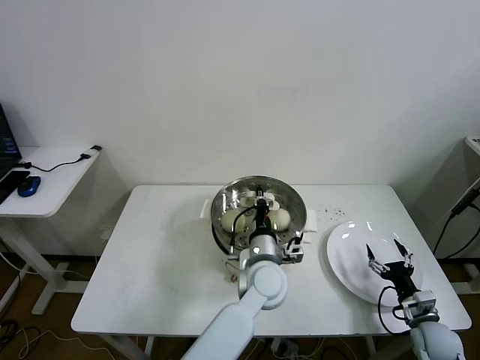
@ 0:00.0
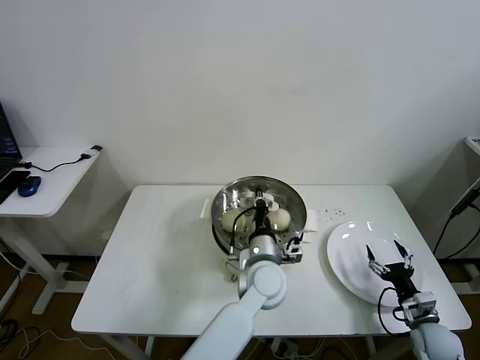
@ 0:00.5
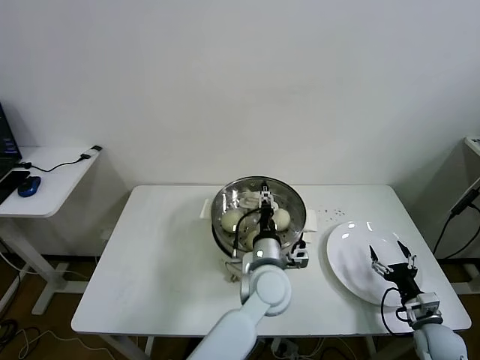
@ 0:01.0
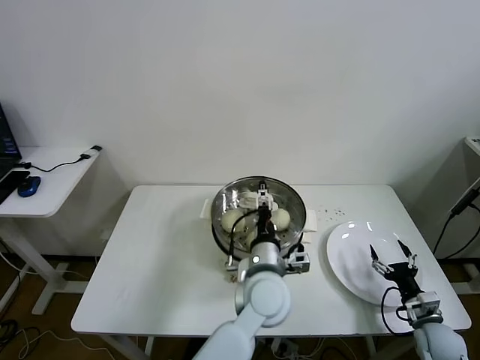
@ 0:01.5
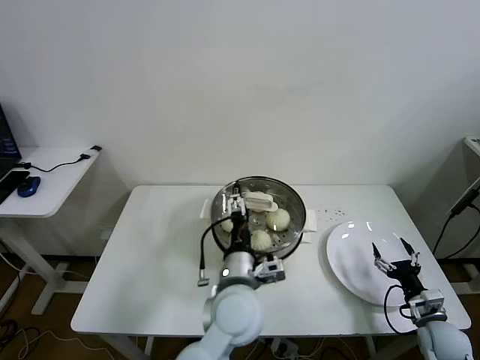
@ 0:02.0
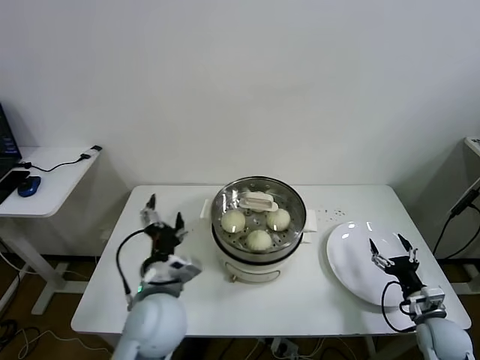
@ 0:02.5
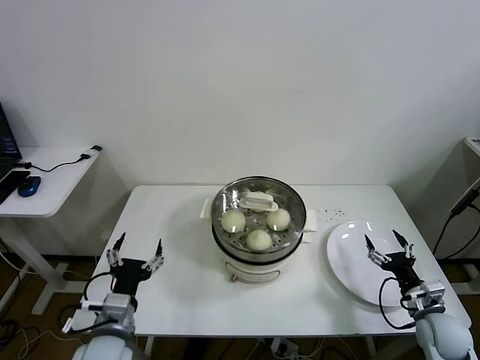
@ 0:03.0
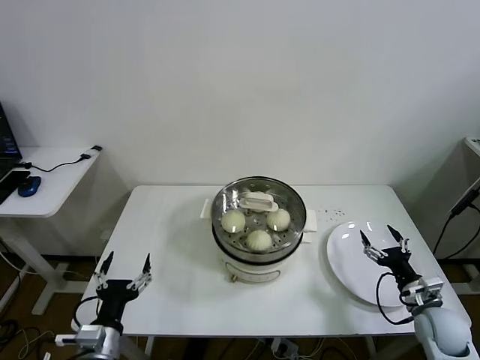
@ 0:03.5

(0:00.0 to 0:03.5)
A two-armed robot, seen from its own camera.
Task of the whole recording: take steamed baozi put them in steamer.
0:00.0 - 0:02.0: The left gripper shifts some 10 cm backward and upward, and opens up.
0:02.0 - 0:03.5: The left gripper heads to the left, covering roughly 30 cm; the right gripper shifts by approximately 5 cm.

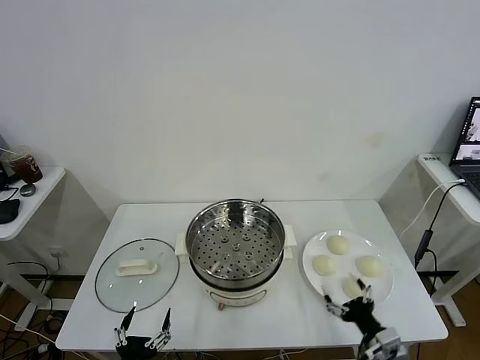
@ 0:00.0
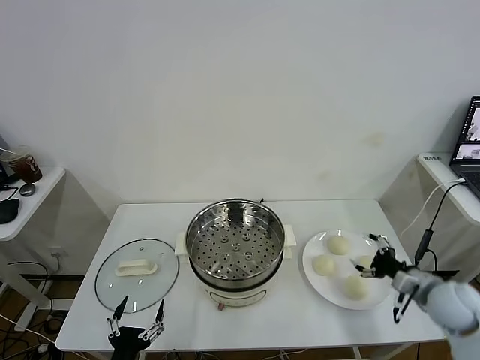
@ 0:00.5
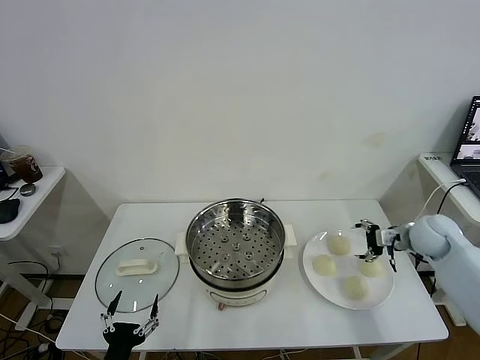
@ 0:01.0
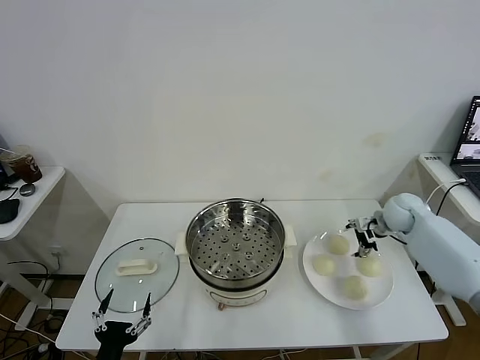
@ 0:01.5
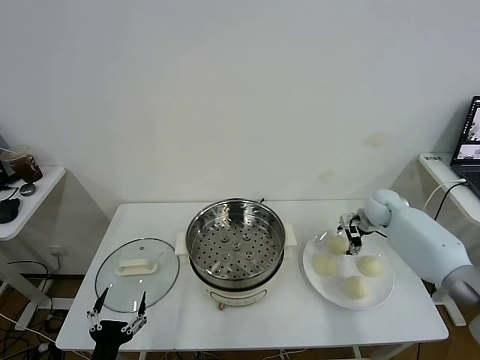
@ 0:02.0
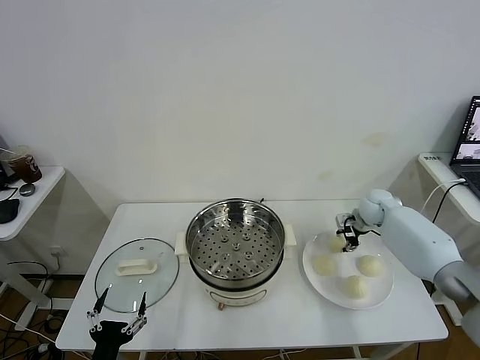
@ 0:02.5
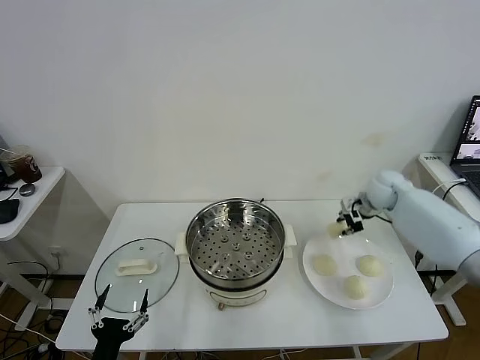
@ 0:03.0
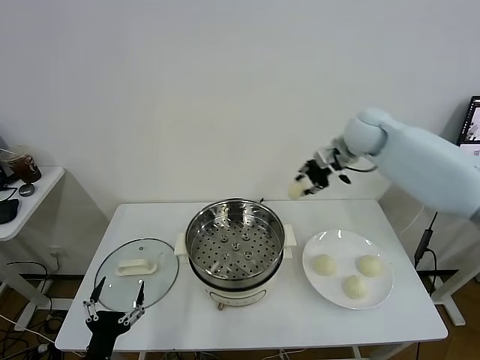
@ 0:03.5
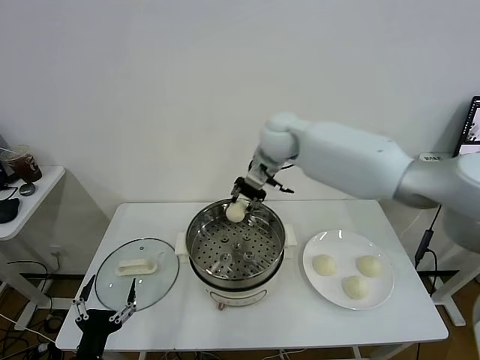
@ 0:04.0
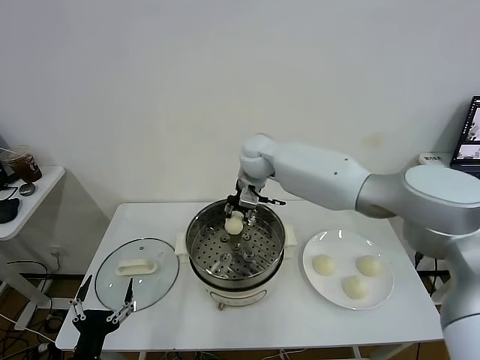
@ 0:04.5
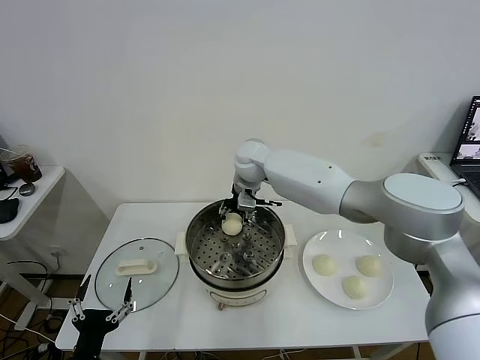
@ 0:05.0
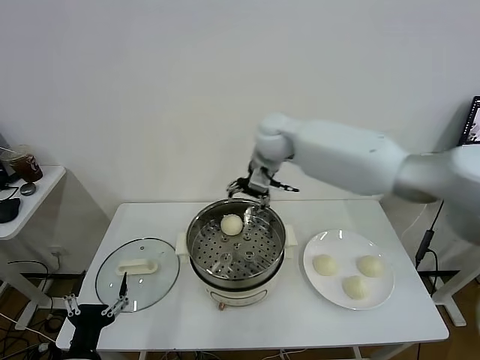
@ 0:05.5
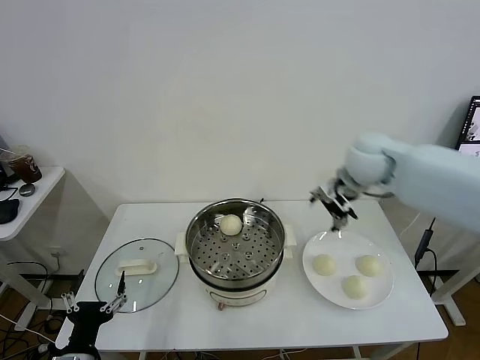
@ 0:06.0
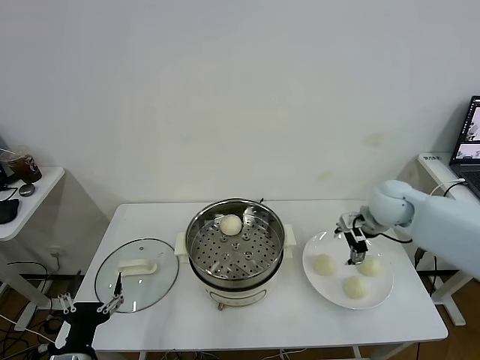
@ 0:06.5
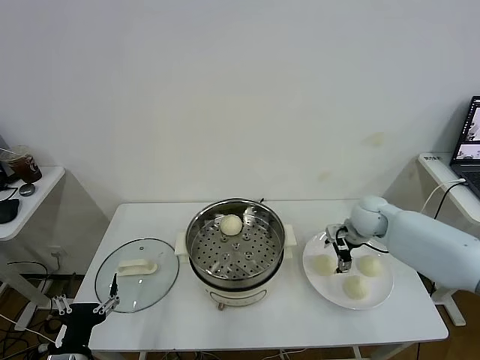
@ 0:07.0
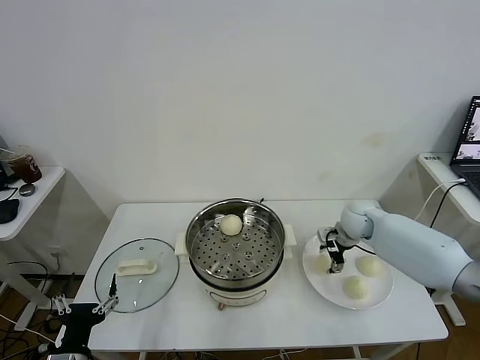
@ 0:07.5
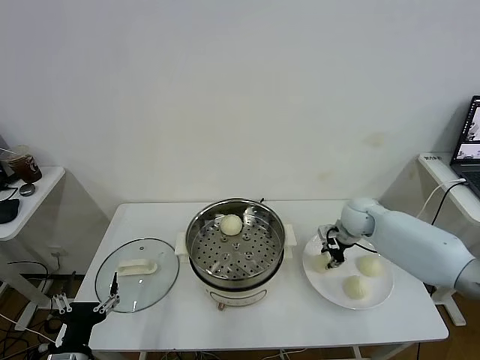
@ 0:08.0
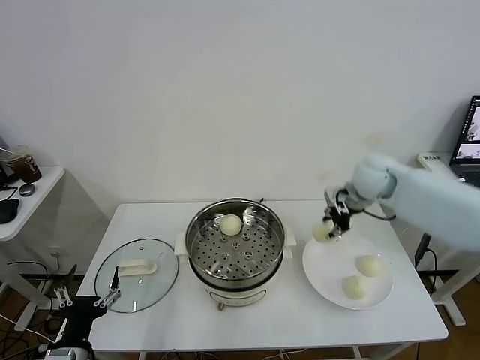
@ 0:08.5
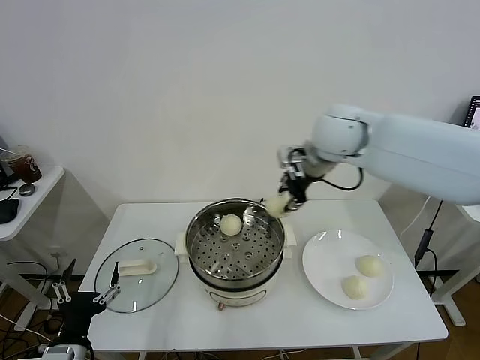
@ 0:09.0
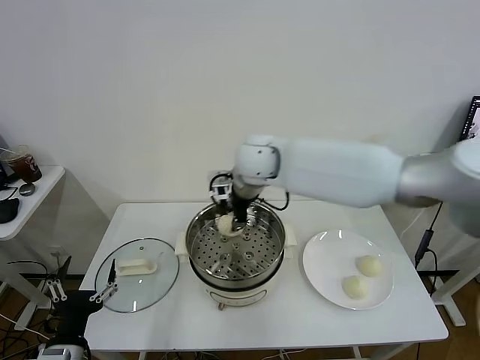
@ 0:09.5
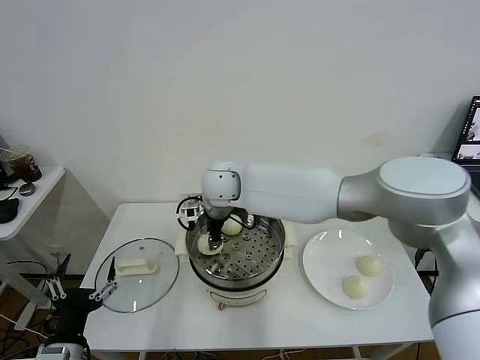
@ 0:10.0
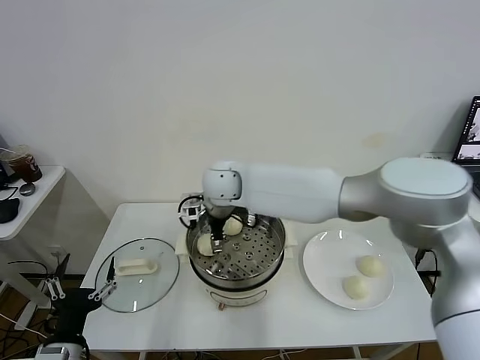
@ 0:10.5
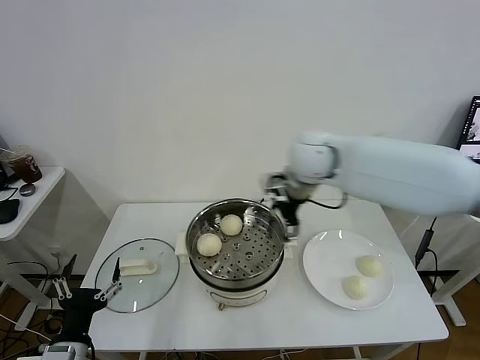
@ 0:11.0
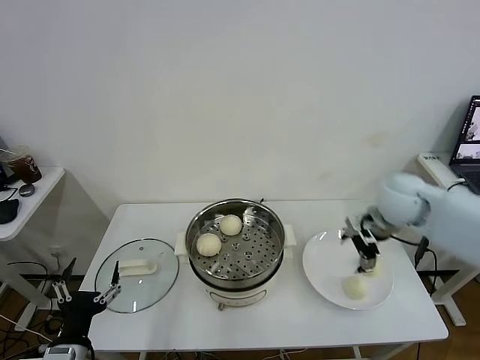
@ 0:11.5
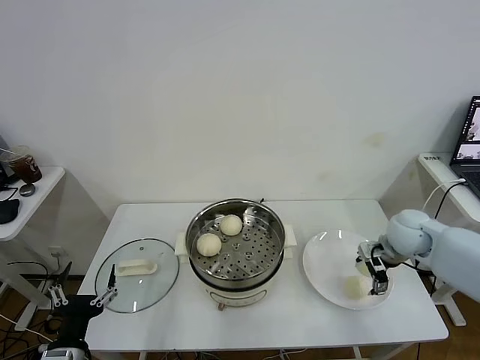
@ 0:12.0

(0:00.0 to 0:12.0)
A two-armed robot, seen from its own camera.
Task of the whole recording: take steamed baozi put them in steamer.
Step, 0:00.0 - 0:02.5: Grasp the baozi in the plate with right gripper.
Step, 0:03.0 - 0:05.0: Place the baozi on the steamer with right gripper.
Step, 0:05.5 - 0:07.5: Grasp the baozi in the plate with right gripper.
Step, 0:08.0 - 0:10.5: Place the baozi on the steamer with right gripper.
0:02.0 - 0:04.0: The right gripper shifts roughly 35 cm to the left and upward, and closes up.
0:04.0 - 0:06.0: The right gripper moves to the right, roughly 20 cm, and opens up.
0:06.0 - 0:08.0: The right gripper shifts approximately 20 cm downward, and closes its fingers.
0:08.0 - 0:10.0: The right gripper is displaced to the left by some 35 cm.
0:10.0 - 0:12.0: The right gripper is displaced to the right by roughly 40 cm, and opens its fingers.

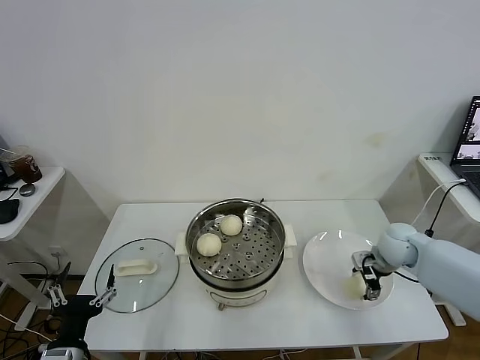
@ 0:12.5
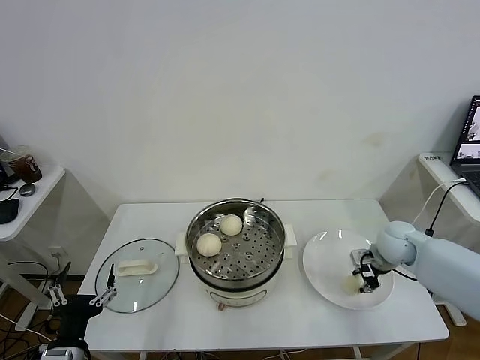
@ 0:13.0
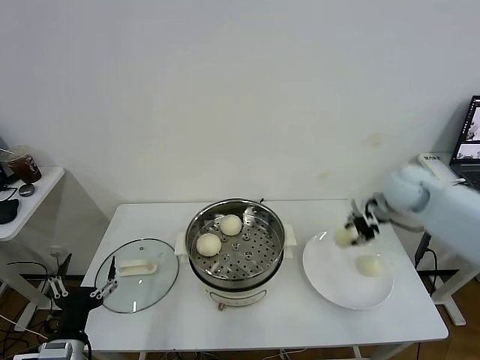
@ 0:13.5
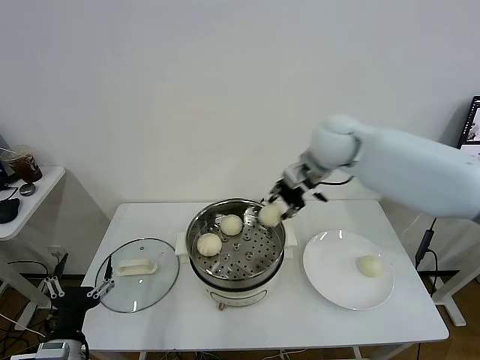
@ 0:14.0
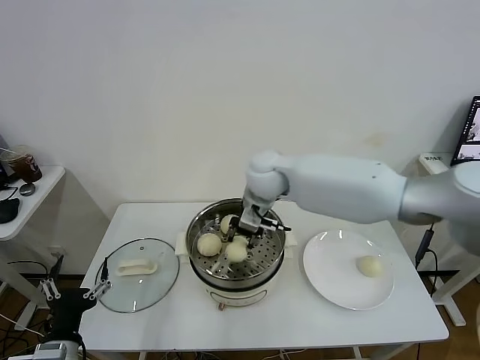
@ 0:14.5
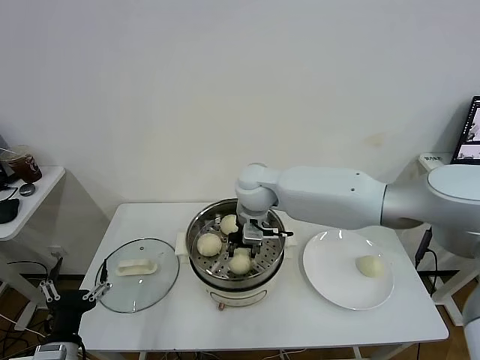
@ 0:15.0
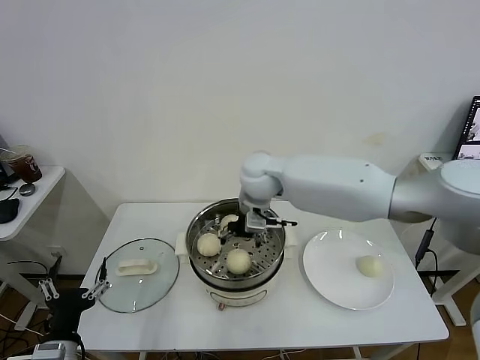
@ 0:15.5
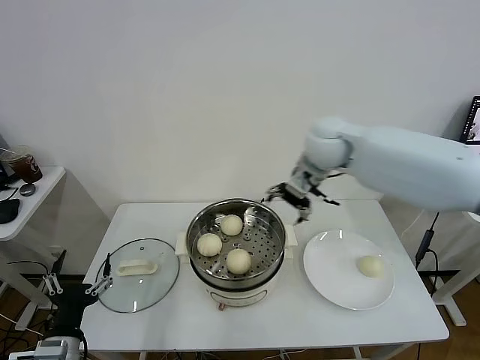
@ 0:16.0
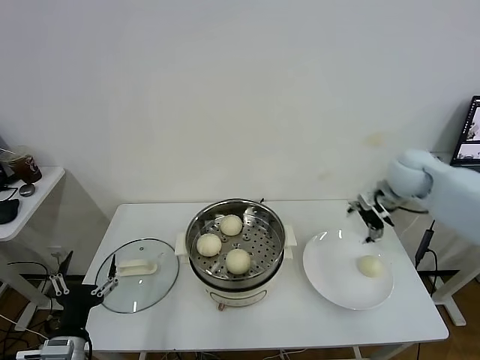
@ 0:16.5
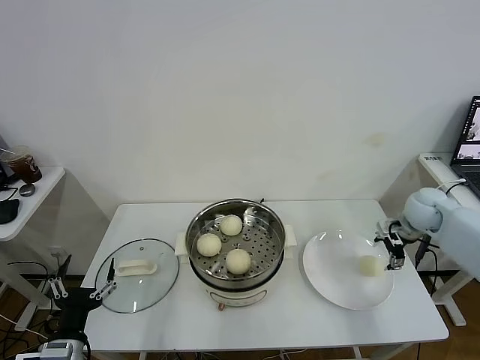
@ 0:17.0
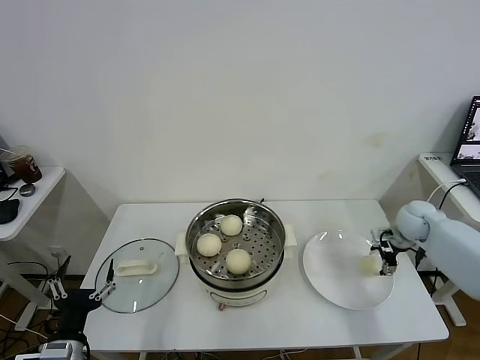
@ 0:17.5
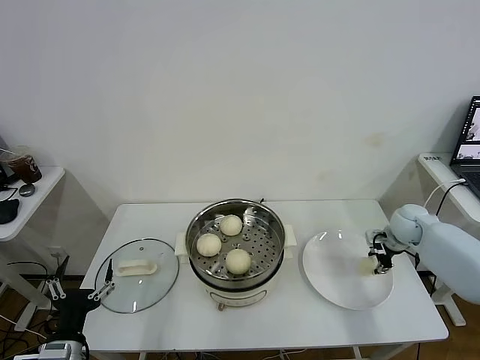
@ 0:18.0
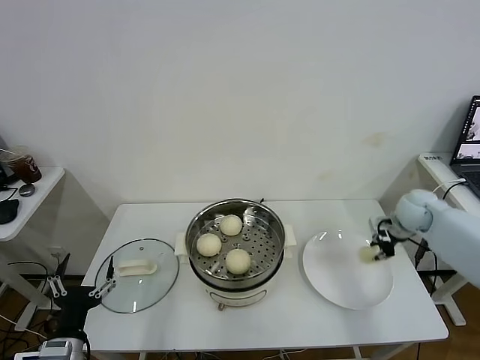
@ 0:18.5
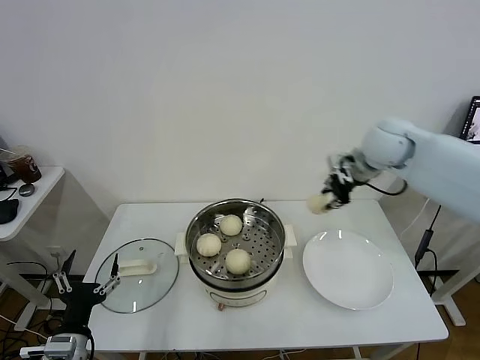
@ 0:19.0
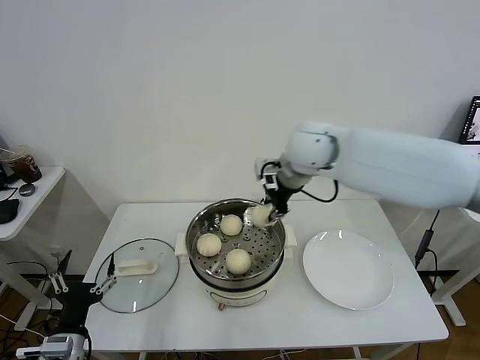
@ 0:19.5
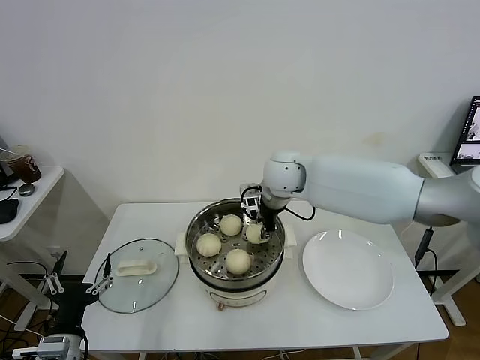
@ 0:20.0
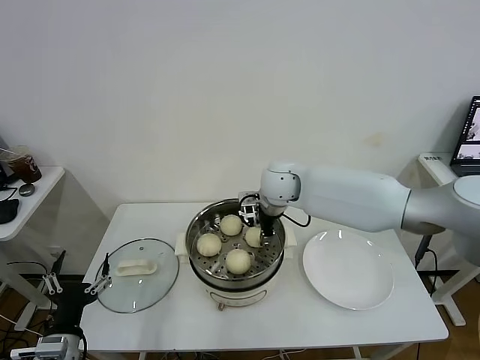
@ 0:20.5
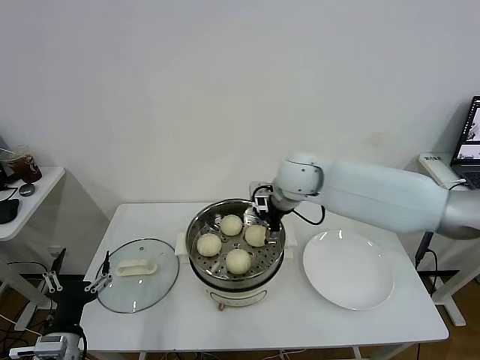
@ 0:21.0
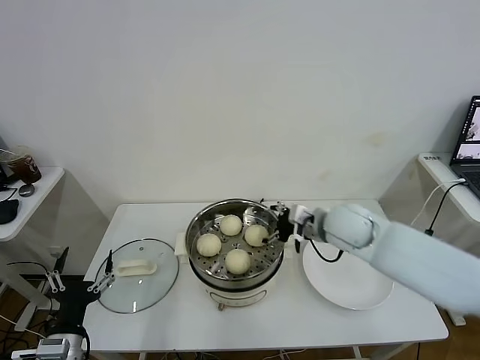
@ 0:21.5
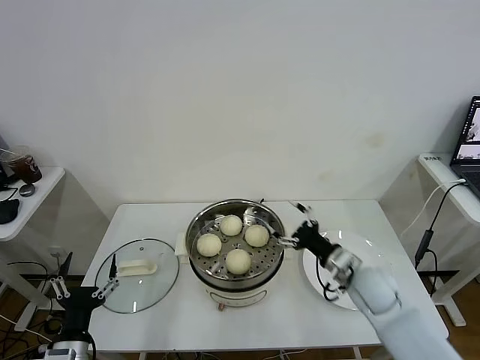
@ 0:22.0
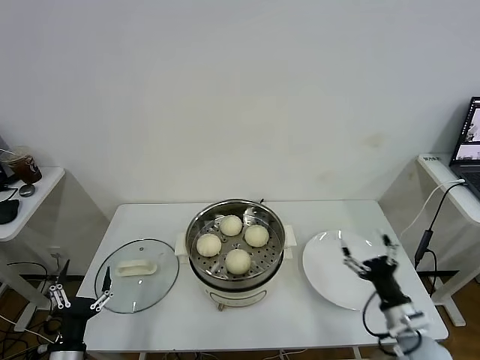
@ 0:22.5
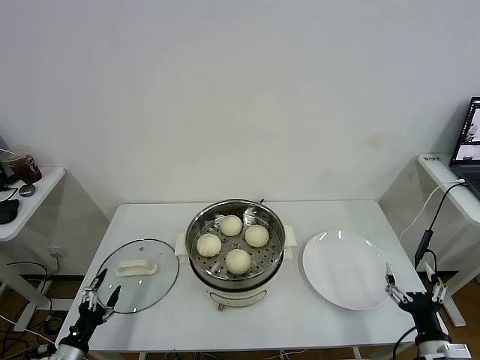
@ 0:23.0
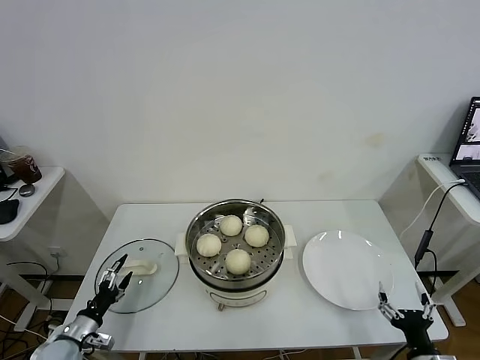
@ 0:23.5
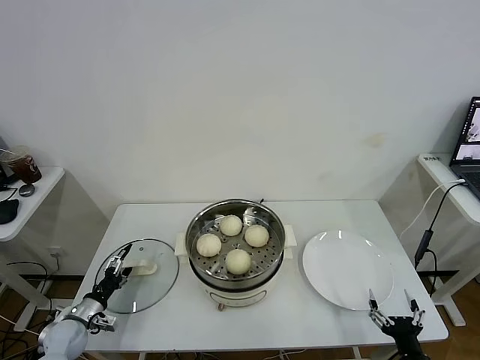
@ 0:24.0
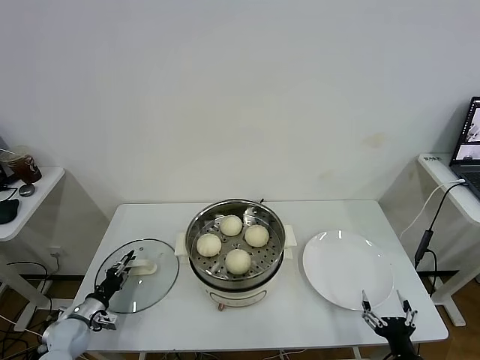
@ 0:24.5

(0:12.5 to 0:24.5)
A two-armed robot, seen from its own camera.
Task of the whole recording: take steamed baozi put them in steamer.
Step, 0:13.0 - 0:15.0: Place the baozi on the steamer with right gripper.
Step, 0:15.5 - 0:18.0: Grasp the baozi in the plate with right gripper.
Step, 0:18.5 - 0:20.5: Place the baozi on the steamer with right gripper.
0:12.5 - 0:14.5: The right gripper goes some 35 cm to the left and upward, and closes its fingers.
0:14.5 - 0:16.5: The right gripper goes about 30 cm to the right, and opens up.
0:16.5 - 0:18.5: The right gripper is displaced downward and to the right by some 10 cm, and closes.
0:18.5 - 0:20.5: The right gripper is displaced to the left by roughly 35 cm, and opens up.
0:20.5 - 0:22.5: The left gripper moves downward, some 5 cm. Meanwhile the right gripper moves backward, to the right and downward, approximately 40 cm, and opens.
0:22.5 - 0:24.5: The right gripper shifts some 10 cm backward and downward, while the left gripper moves forward, downward and to the left, about 20 cm, and closes.
